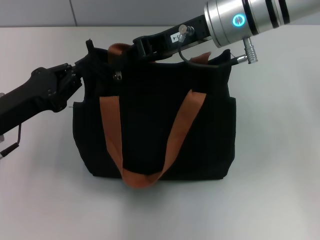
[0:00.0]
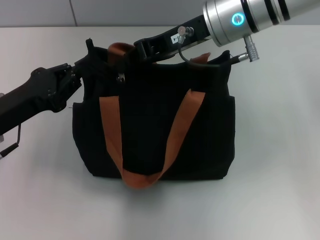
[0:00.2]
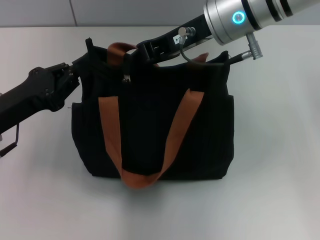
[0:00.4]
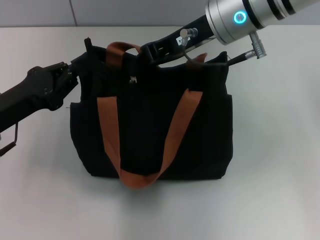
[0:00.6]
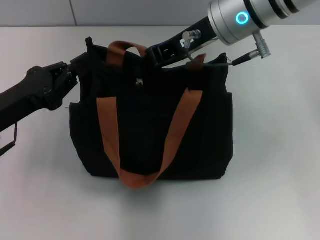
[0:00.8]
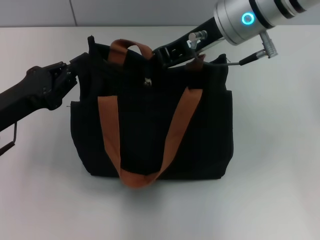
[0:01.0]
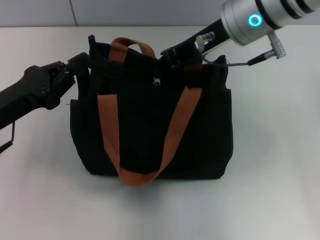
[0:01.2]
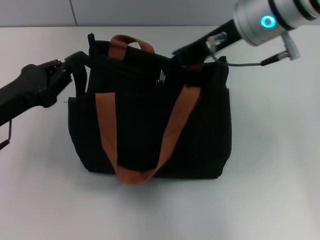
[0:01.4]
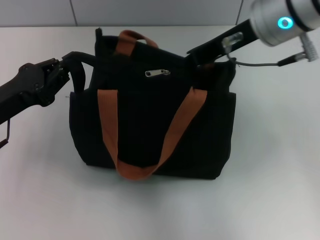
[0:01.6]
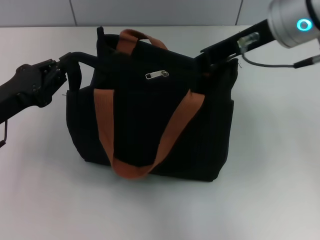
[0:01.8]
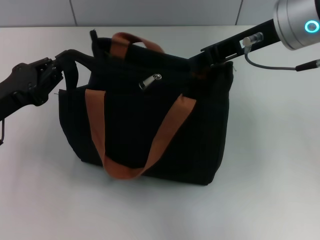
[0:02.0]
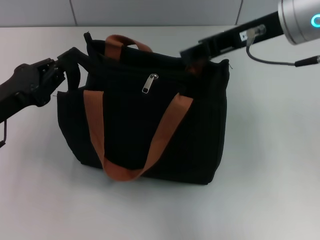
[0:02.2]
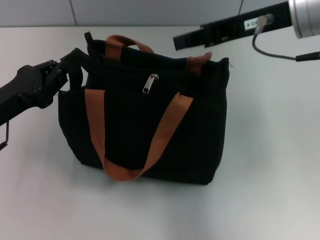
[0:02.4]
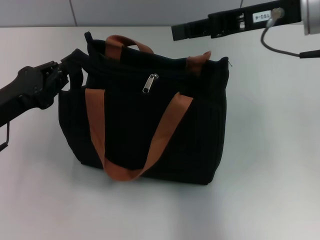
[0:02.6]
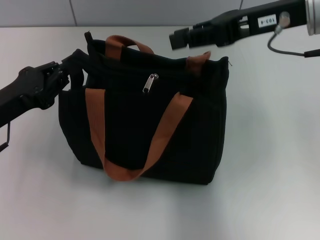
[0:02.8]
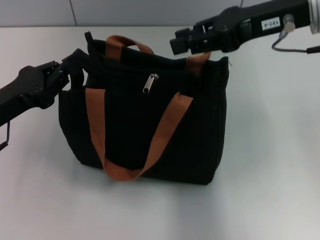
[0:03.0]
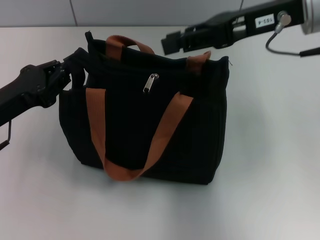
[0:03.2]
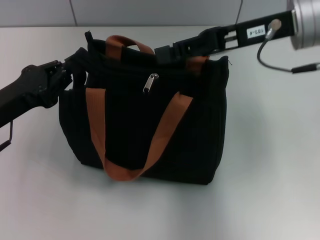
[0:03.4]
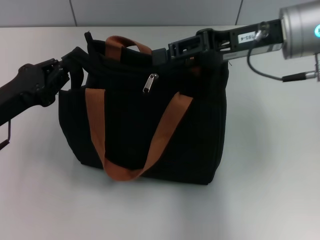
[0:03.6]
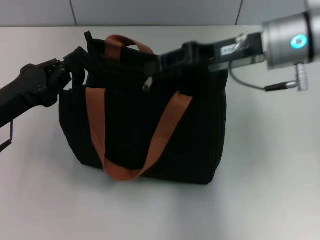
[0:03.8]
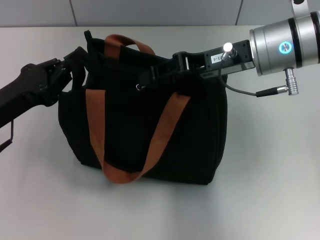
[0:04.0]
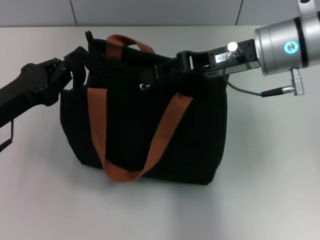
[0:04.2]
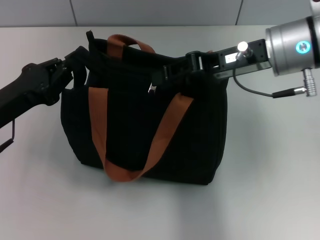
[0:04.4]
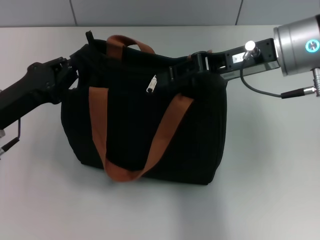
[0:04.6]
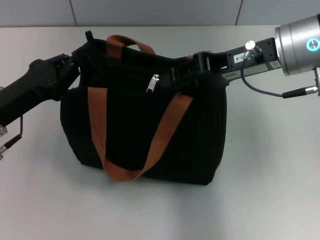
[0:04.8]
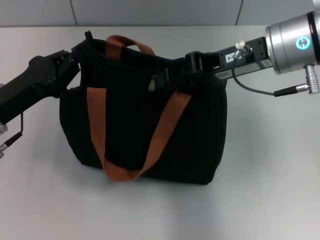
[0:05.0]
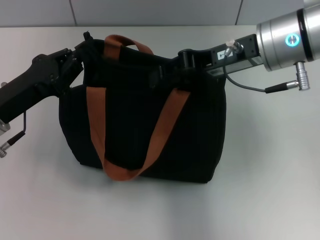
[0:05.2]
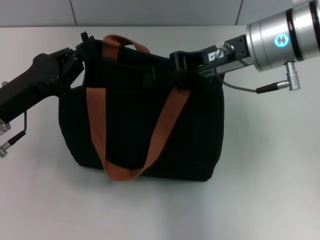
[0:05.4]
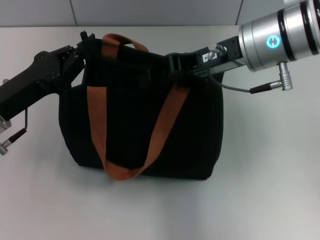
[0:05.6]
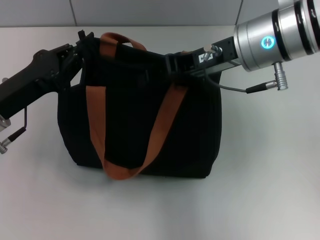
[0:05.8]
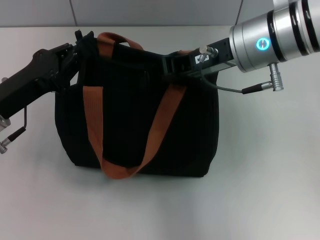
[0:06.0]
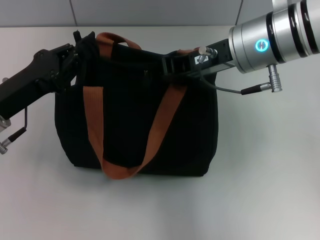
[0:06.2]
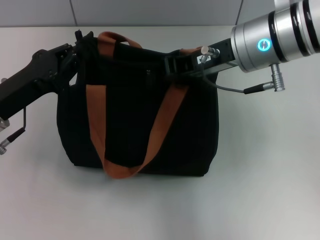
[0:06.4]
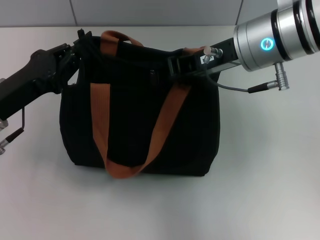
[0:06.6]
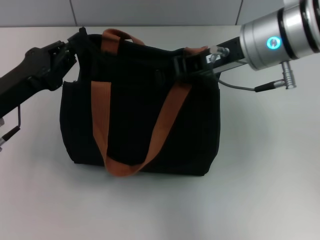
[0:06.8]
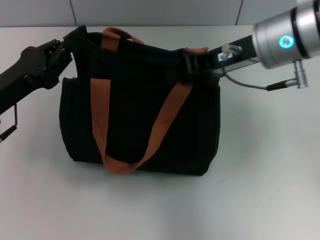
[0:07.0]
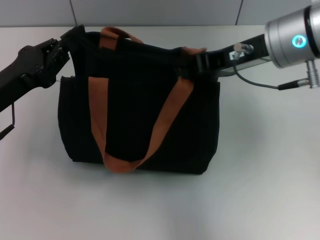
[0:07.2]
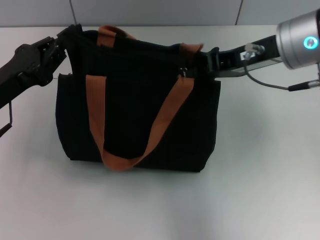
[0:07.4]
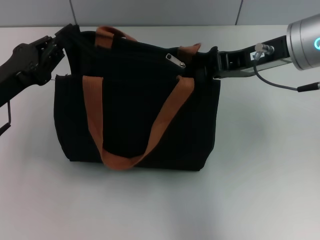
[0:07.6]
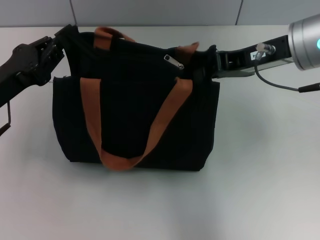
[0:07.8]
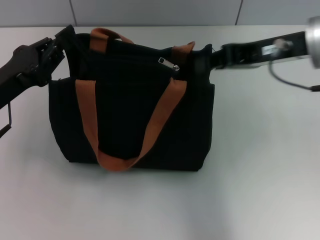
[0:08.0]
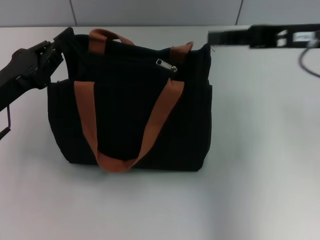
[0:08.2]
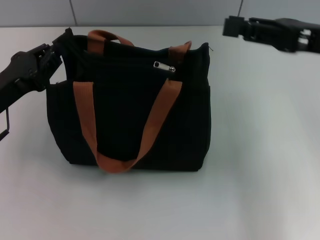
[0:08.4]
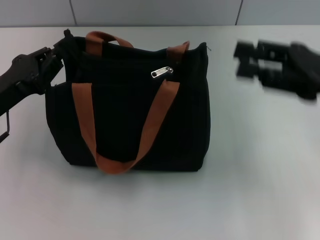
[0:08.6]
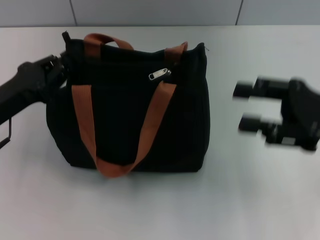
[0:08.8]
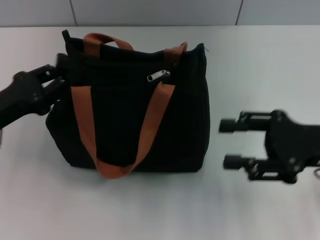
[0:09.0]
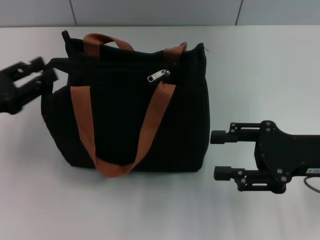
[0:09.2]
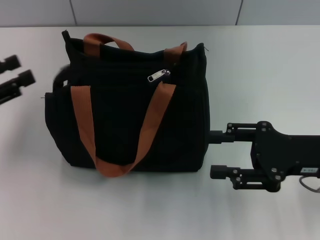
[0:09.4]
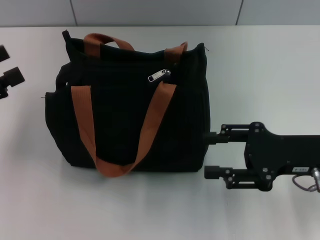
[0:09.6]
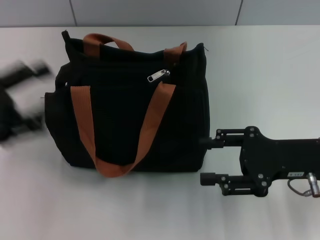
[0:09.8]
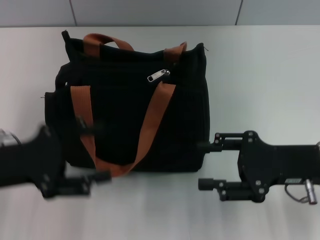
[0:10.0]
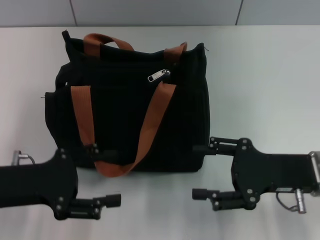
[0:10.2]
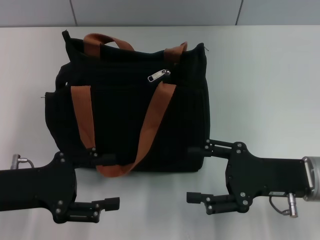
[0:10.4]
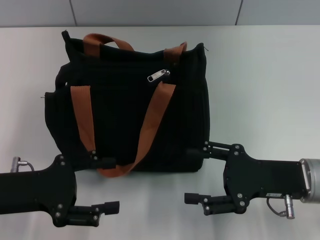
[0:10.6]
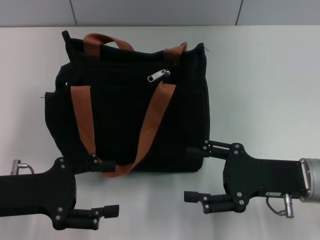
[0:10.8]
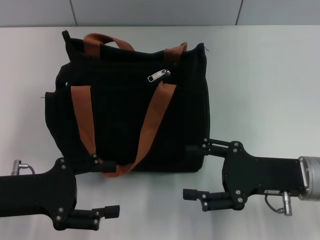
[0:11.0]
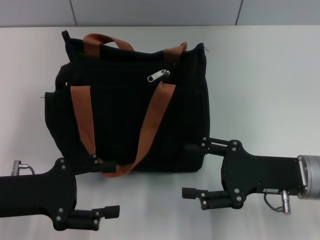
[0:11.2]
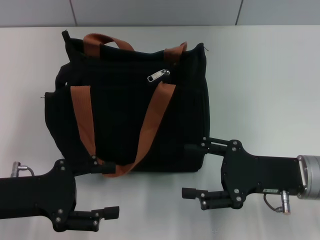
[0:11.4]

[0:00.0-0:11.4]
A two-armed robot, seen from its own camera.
Step, 0:00.0 to 0:07.4: Pull up the zipper with your right hand.
Step, 0:07.6 to 0:09.2: Grab the zipper with your left hand.
0:01.4 to 0:02.8: The right gripper goes some 5 cm to the right.
0:02.8 to 0:04.2: The right gripper moves downward, about 5 cm.
0:04.2 to 0:05.6: The grippers move only a little.
0:05.6 to 0:07.2: The right gripper closes up.
0:07.2 to 0:08.6: The right gripper goes about 15 cm to the right and backward, and opens.
0:08.6 to 0:10.0: The right gripper goes some 10 cm downward, and opens; the left gripper travels to the left and back again, some 10 cm each way, and opens.
0:10.0 to 0:11.4: The grippers move only a little.

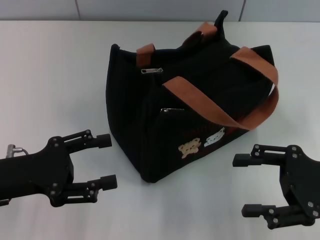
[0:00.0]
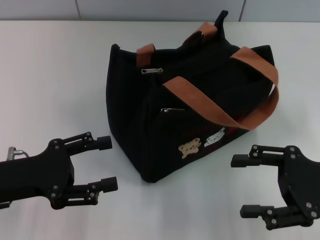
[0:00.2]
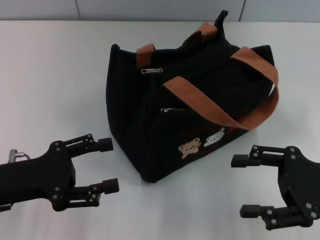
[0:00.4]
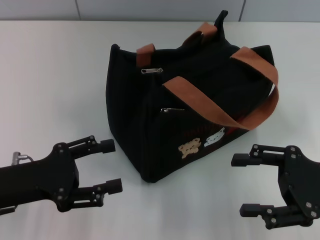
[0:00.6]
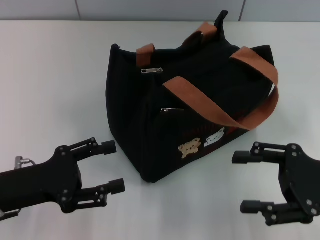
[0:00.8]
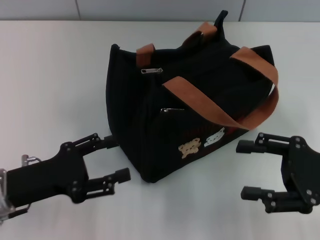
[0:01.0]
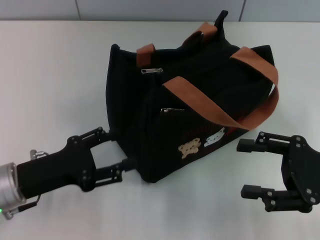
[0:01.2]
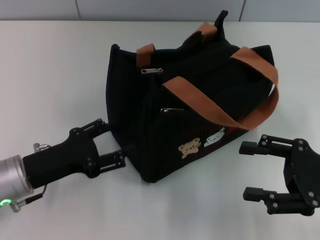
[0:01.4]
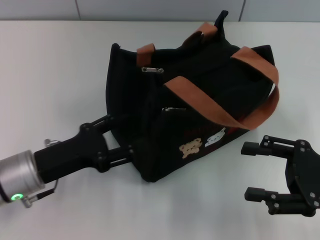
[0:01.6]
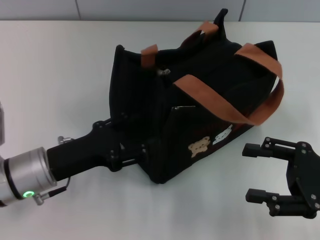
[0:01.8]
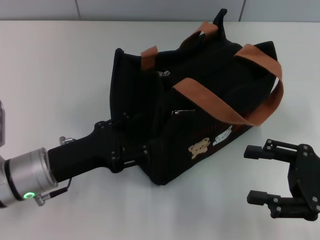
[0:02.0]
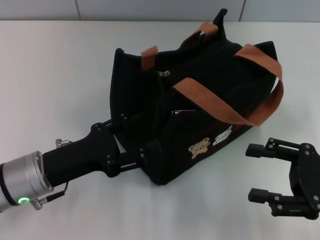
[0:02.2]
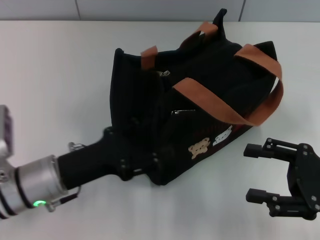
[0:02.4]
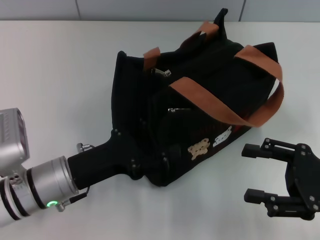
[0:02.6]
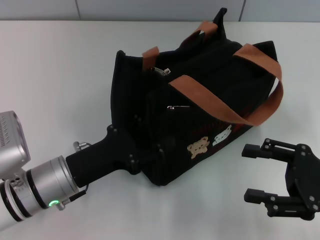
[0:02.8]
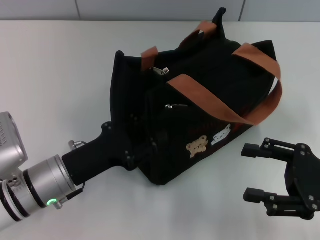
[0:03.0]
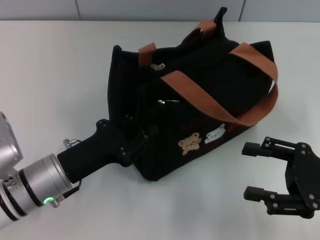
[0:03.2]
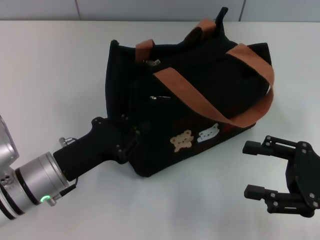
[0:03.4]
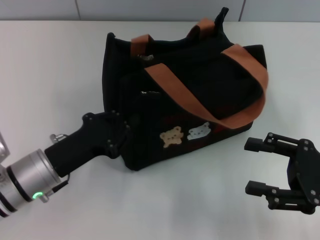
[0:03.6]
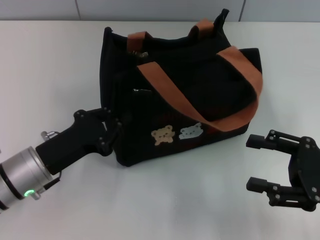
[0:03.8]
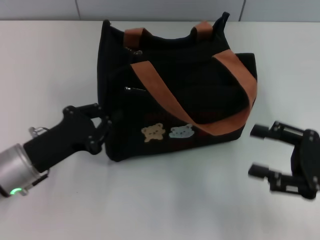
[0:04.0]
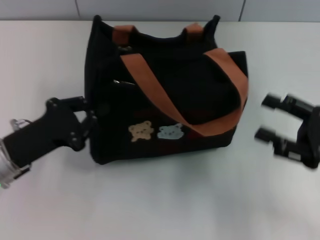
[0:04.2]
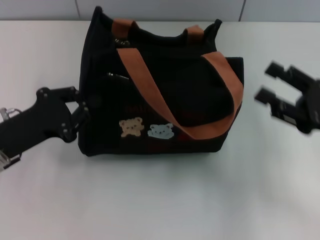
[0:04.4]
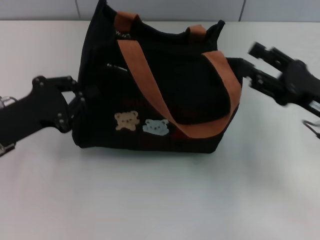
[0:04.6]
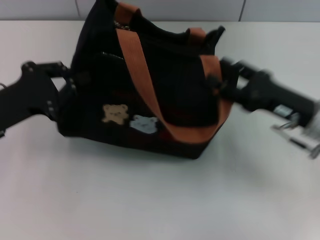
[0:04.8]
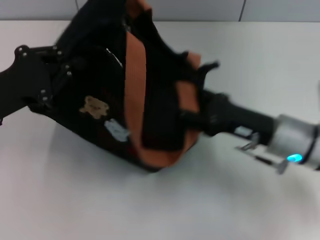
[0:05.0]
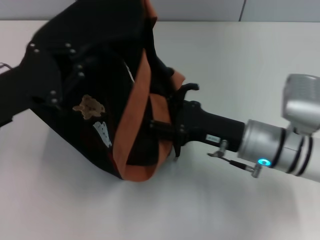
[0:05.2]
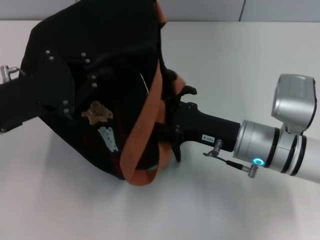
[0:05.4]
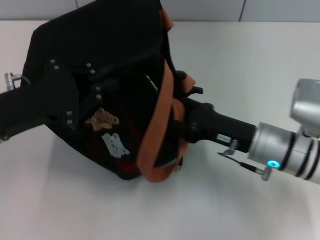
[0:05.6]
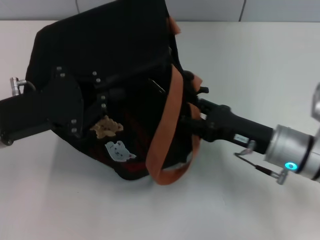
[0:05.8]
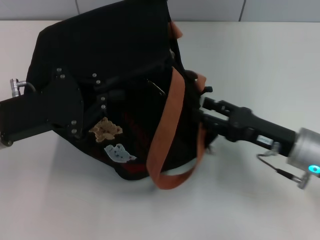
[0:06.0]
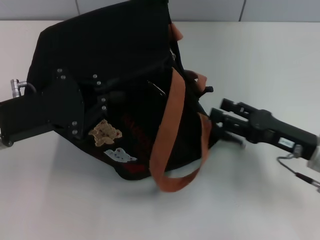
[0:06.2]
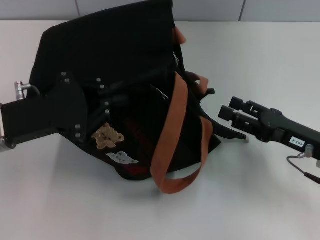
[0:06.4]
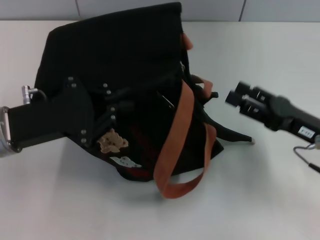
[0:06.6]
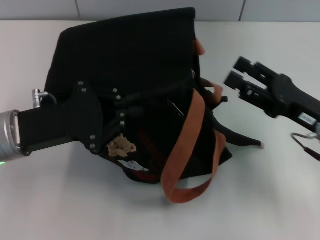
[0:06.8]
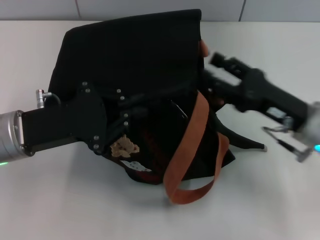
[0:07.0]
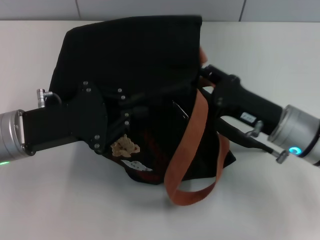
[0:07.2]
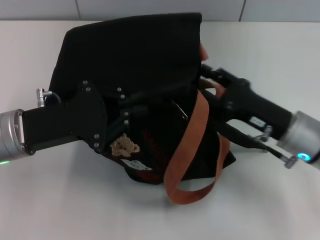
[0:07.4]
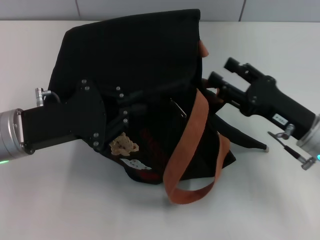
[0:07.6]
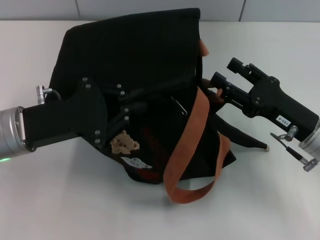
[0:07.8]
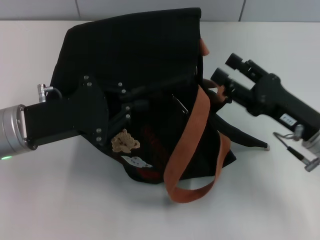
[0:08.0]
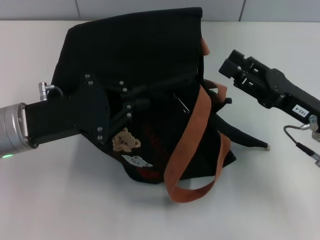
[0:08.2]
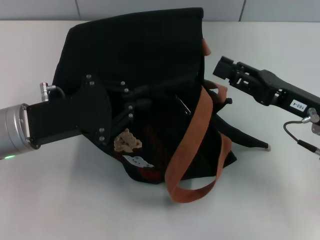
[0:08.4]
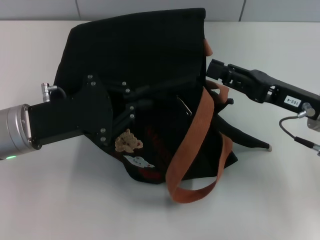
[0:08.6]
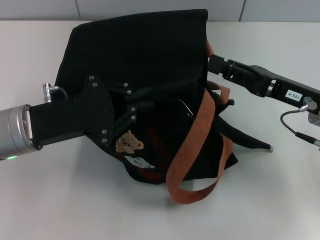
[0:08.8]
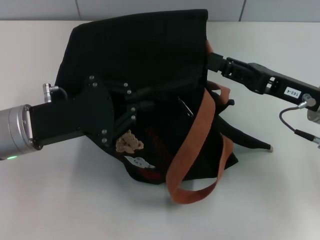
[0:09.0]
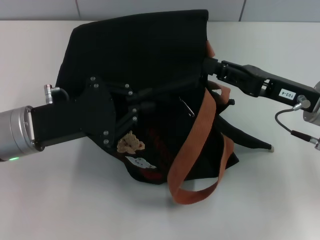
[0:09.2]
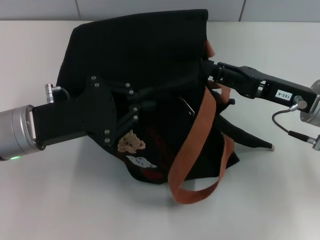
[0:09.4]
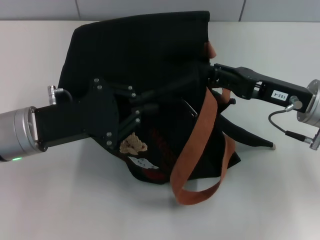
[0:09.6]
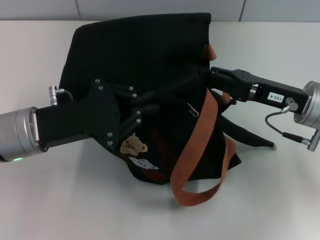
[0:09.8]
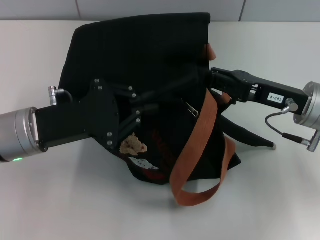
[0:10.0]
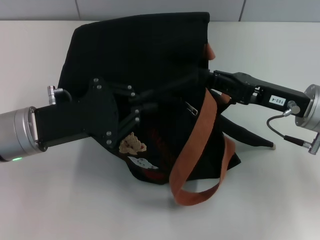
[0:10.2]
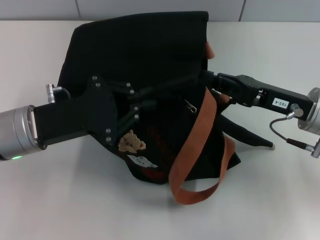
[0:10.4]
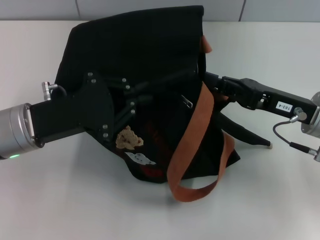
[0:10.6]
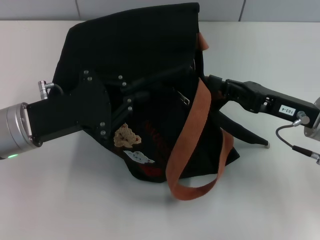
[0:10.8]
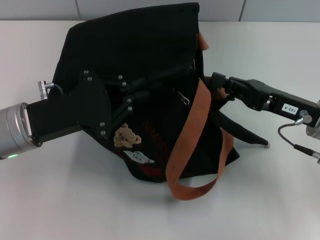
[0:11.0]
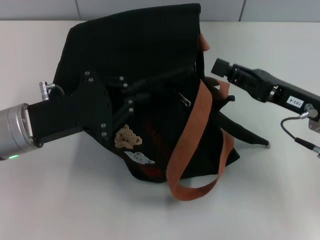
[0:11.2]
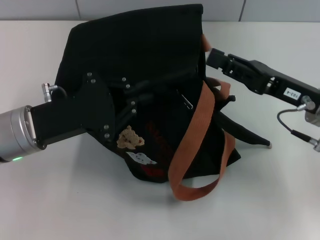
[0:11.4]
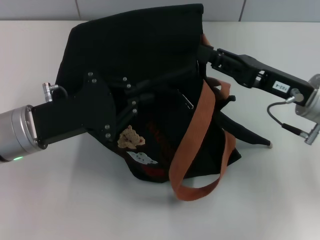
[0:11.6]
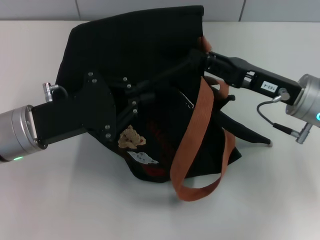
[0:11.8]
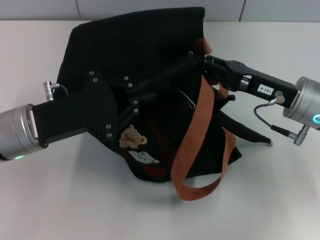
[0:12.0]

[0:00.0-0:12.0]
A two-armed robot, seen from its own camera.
0:00.0 to 0:01.6: The left gripper changes place by some 5 cm.
0:01.6 to 0:03.0: The grippers make only small movements.
0:03.0 to 0:04.4: The left gripper travels to the left by approximately 10 cm, and closes.
0:04.4 to 0:06.0: The right gripper travels to the left by about 5 cm. Meanwhile the left gripper shifts by approximately 5 cm.
0:07.6 to 0:09.0: The right gripper ends up roughly 5 cm from where it was, and closes.
0:09.0 to 0:10.4: The right gripper closes up.
0:10.4 to 0:12.0: The grippers make only small movements.
